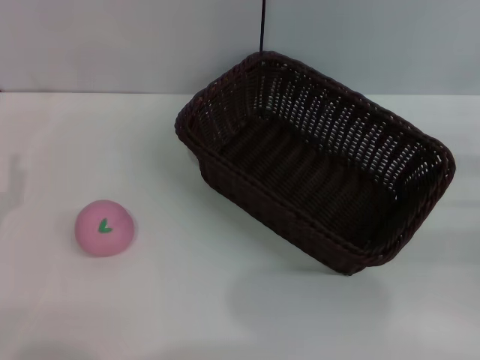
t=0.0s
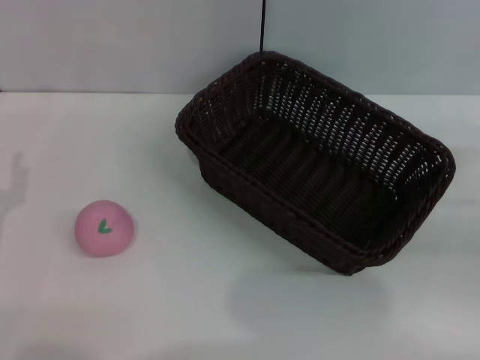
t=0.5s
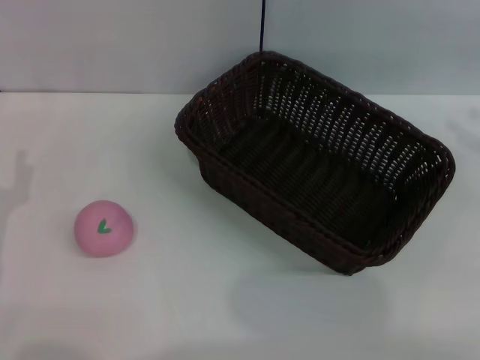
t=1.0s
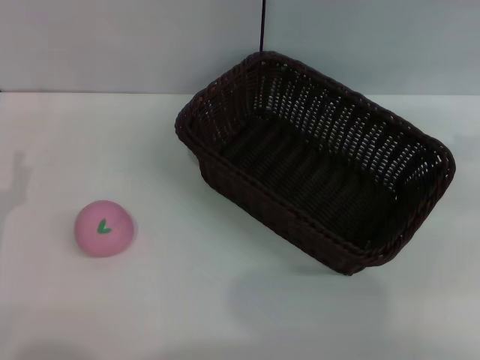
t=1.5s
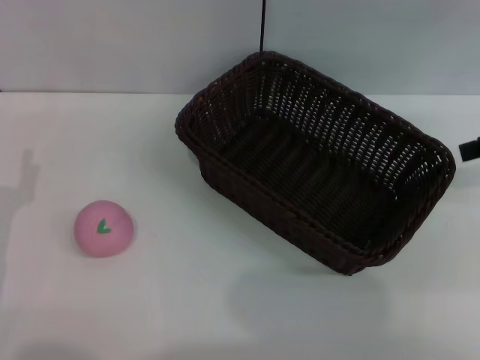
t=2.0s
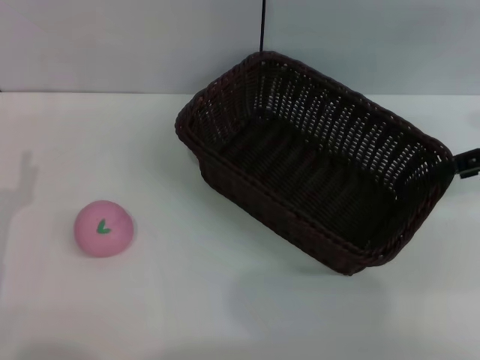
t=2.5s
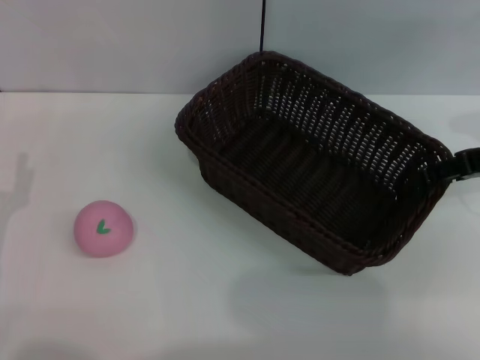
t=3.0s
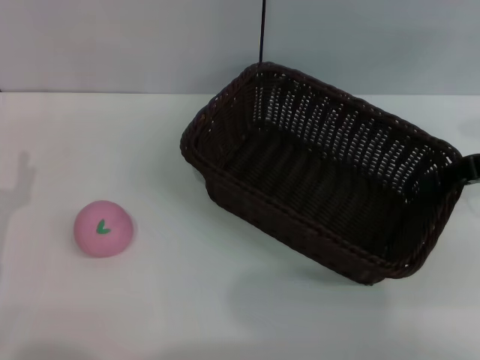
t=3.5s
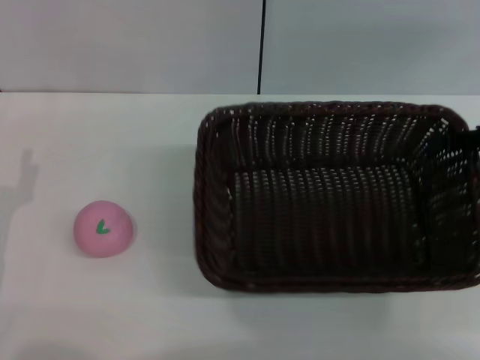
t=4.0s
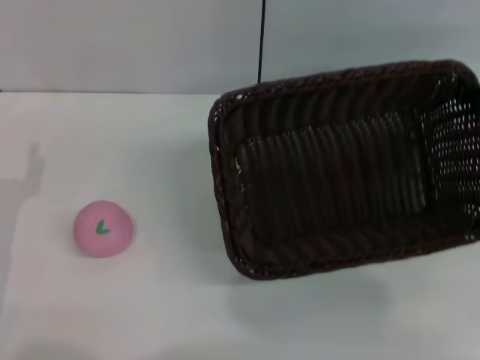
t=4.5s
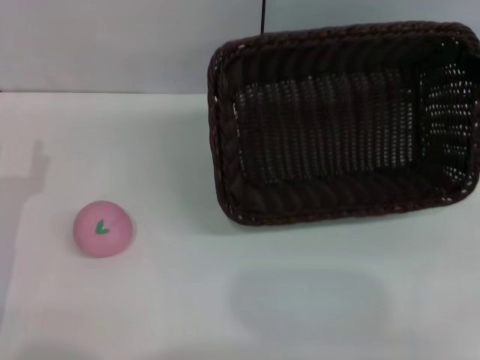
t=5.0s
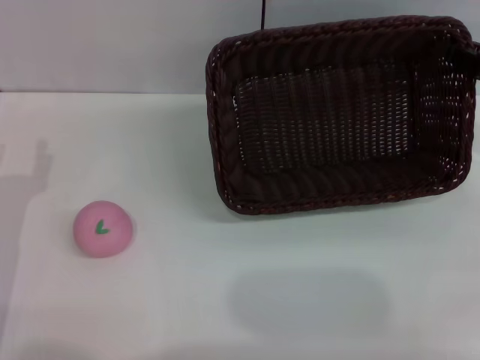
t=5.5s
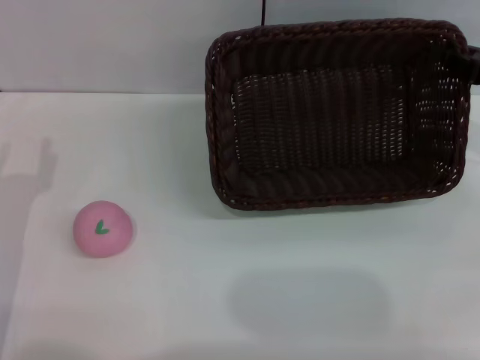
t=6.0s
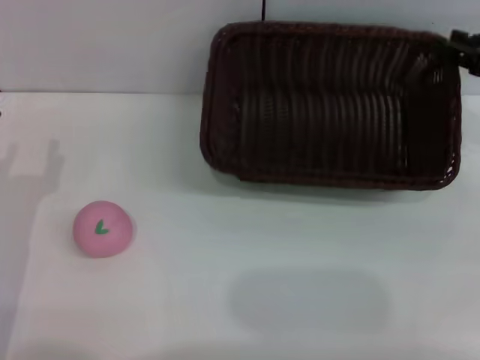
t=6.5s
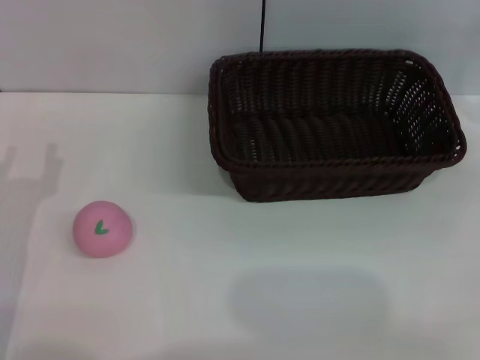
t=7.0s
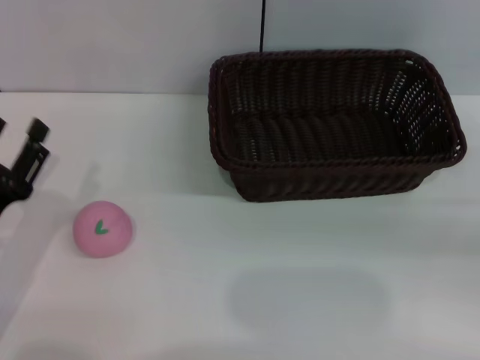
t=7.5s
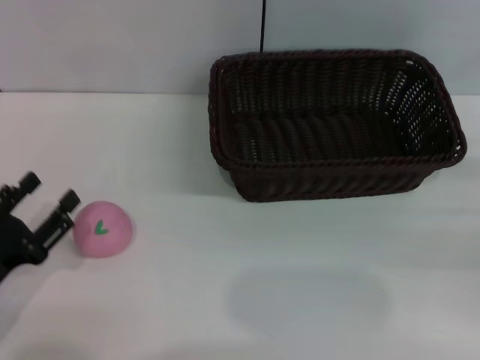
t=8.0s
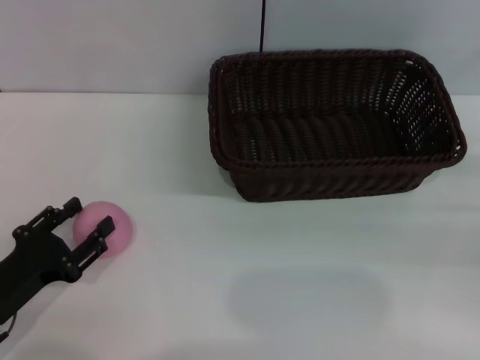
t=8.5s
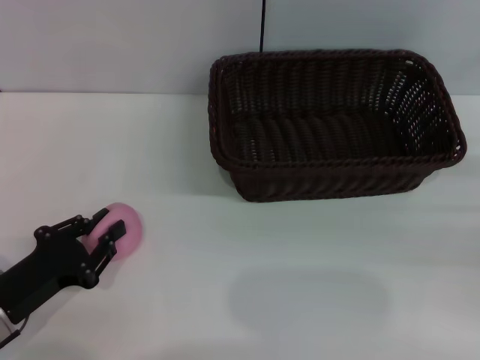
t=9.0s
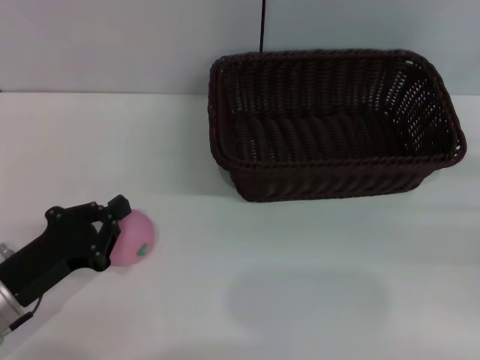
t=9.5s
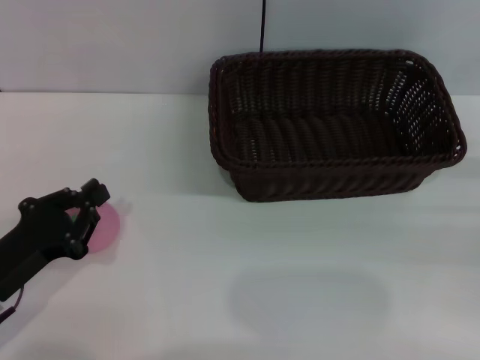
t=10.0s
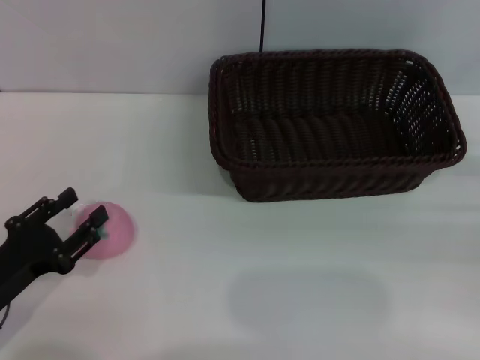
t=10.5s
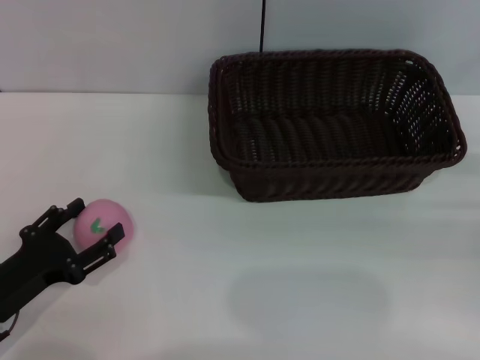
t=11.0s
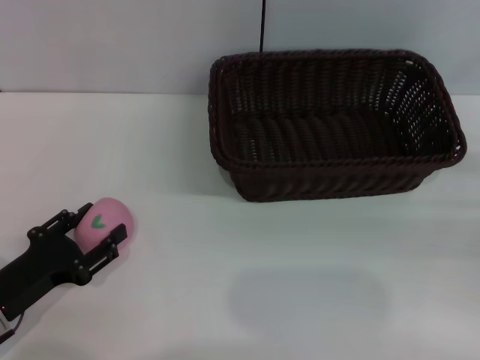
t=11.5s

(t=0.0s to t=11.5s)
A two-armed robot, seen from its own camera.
Step, t=0.0s - t=4.0s: Pick up the dark basket with the right gripper.
Step, t=4.5s - t=6.5s: Place the dark basket in the center of view with the right gripper.
t=0.0s - t=2.0s: The right gripper heads upward and forward, covering about 20 cm.
t=2.0s - t=4.0s: The right gripper moves some 5 cm, and closes its fingers.
t=6.0s - t=7.5s: The right gripper goes roughly 10 cm backward and to the right, and opens up.
t=7.5s - t=9.5s: The left gripper closes its fingers.
t=9.5s - t=11.5s: The left gripper opens its fingers.

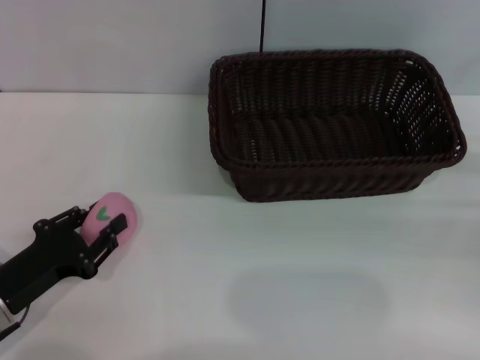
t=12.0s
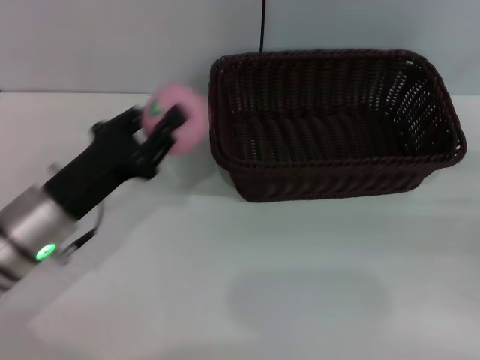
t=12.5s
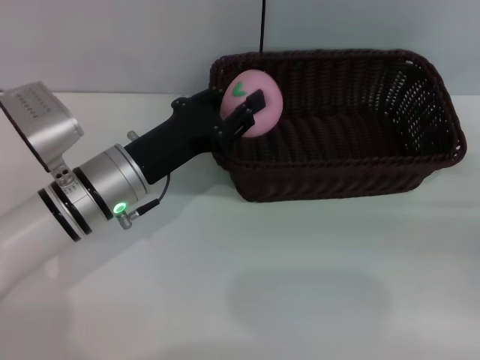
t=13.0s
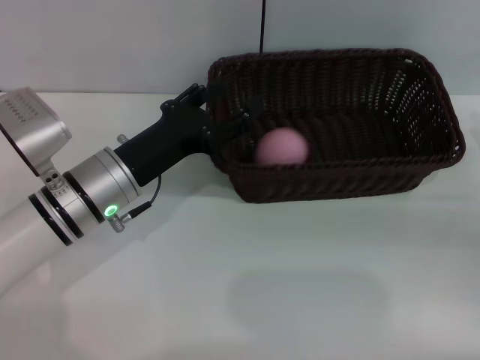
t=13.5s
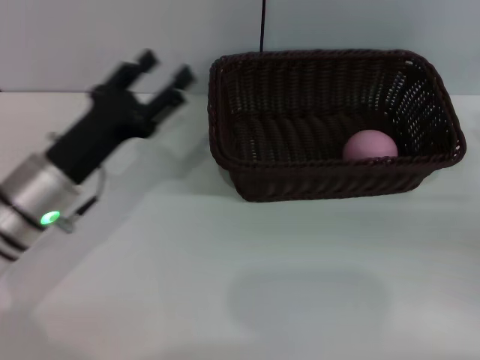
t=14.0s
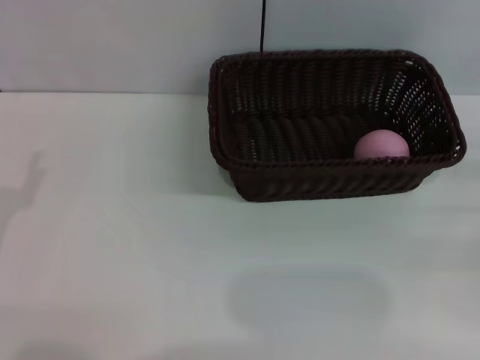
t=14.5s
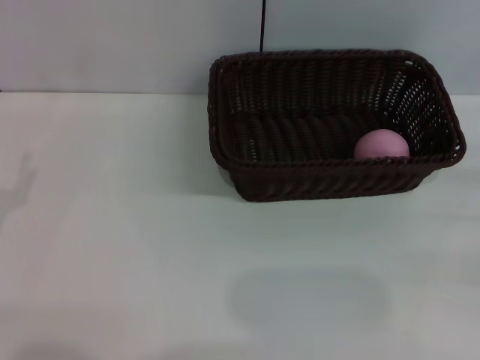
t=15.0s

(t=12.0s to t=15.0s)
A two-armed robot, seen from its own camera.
Step, t=12.5s - t=13.5s: Place the peach into the basket with the left gripper.
t=12.0s - t=13.5s: The left gripper travels to the right, forward and upward by some 15 cm.
t=13.5s - t=15.0s: The right gripper ends up about 5 cm from where it was, while the left gripper heads to the left and backward, covering approximately 20 cm.

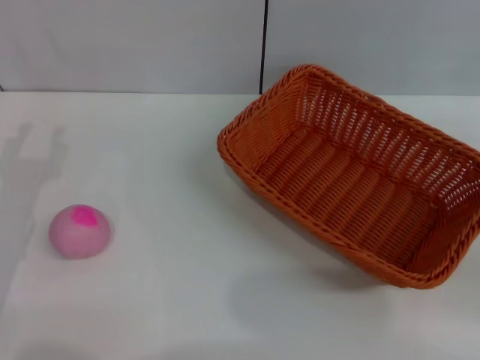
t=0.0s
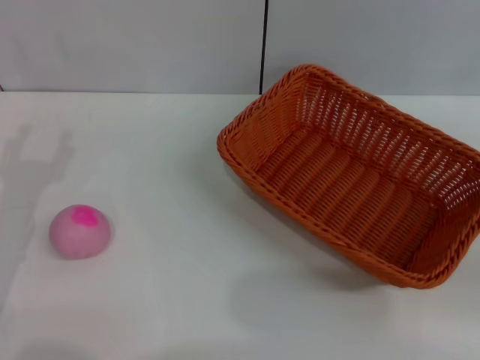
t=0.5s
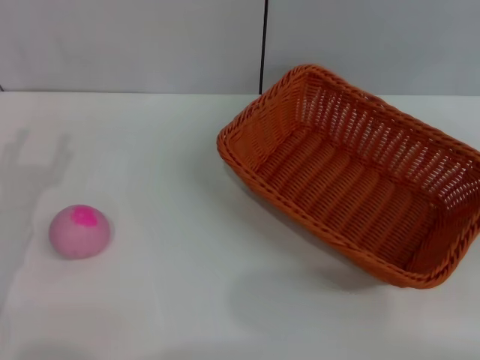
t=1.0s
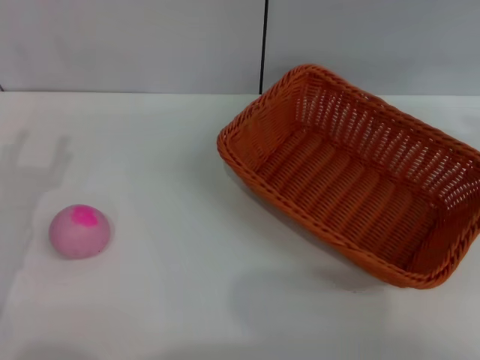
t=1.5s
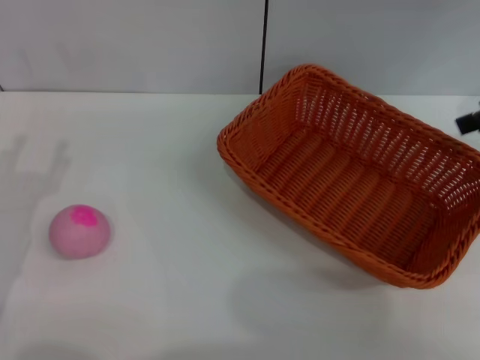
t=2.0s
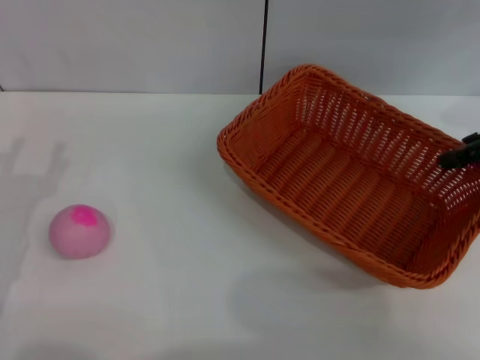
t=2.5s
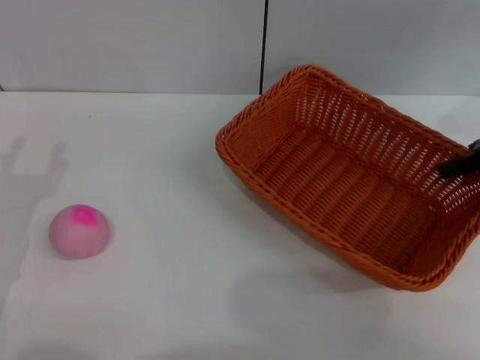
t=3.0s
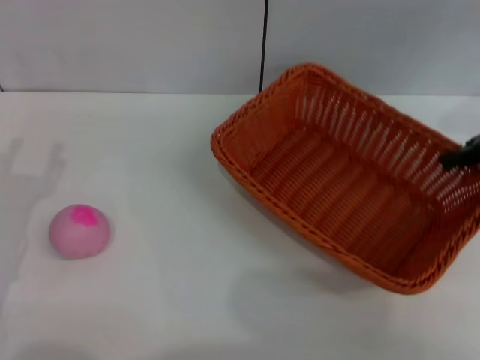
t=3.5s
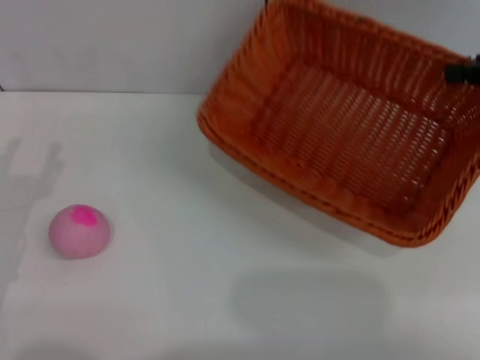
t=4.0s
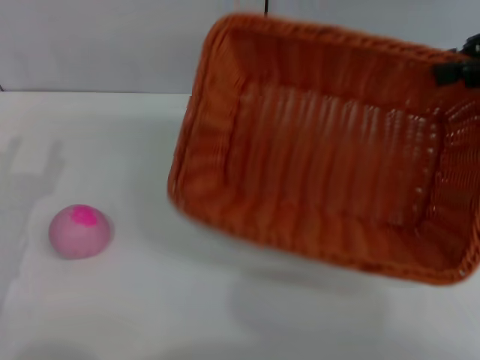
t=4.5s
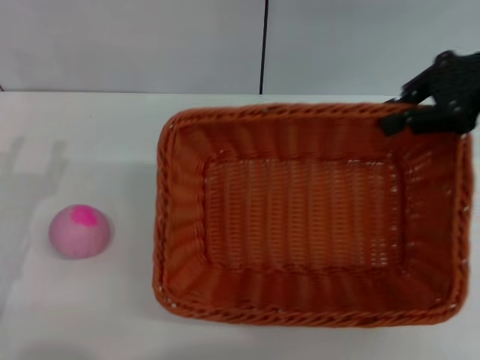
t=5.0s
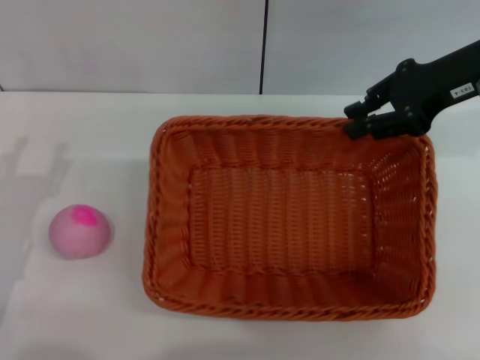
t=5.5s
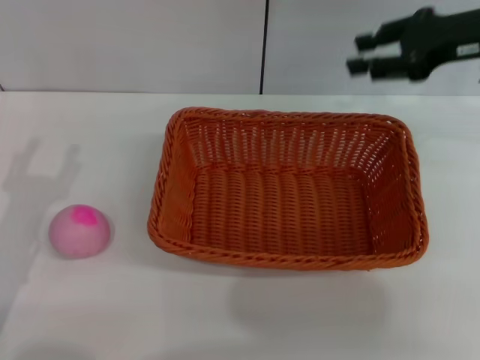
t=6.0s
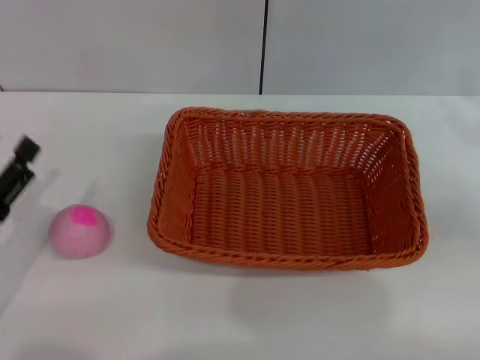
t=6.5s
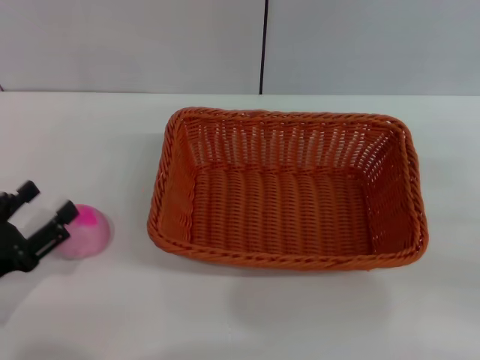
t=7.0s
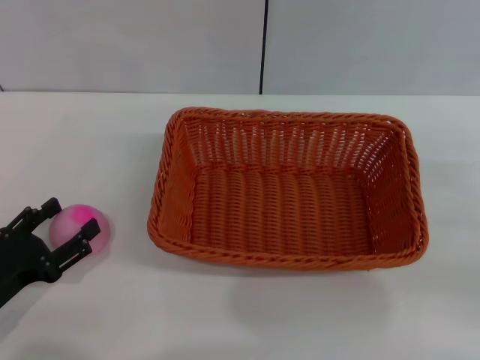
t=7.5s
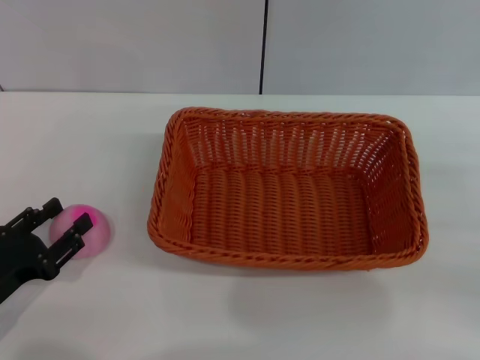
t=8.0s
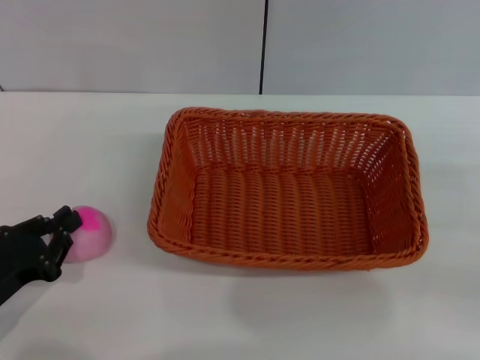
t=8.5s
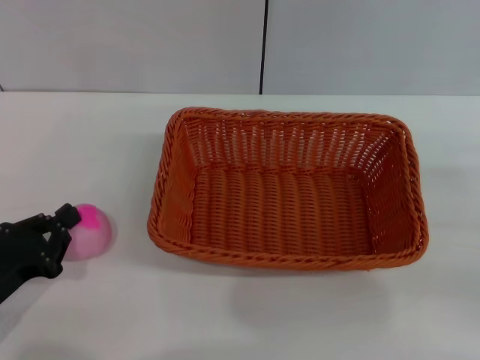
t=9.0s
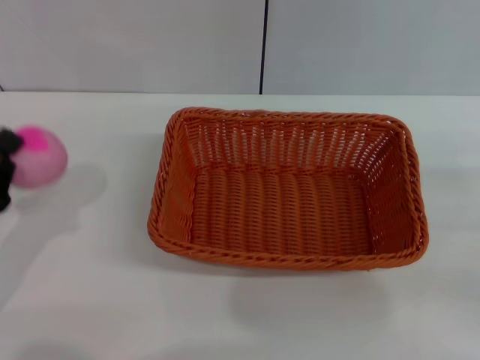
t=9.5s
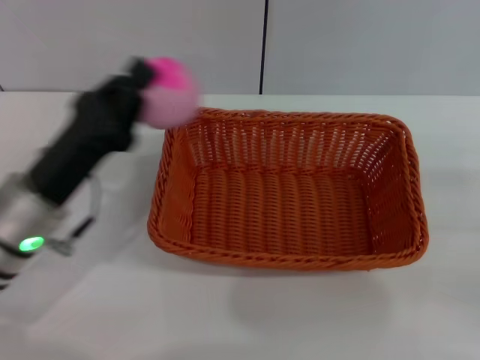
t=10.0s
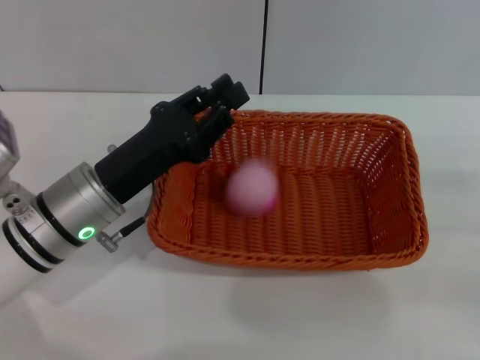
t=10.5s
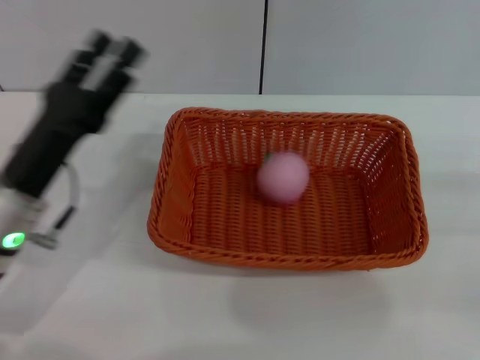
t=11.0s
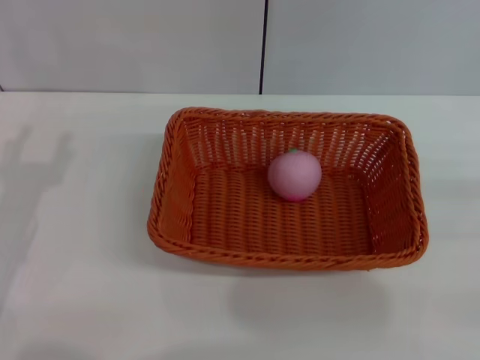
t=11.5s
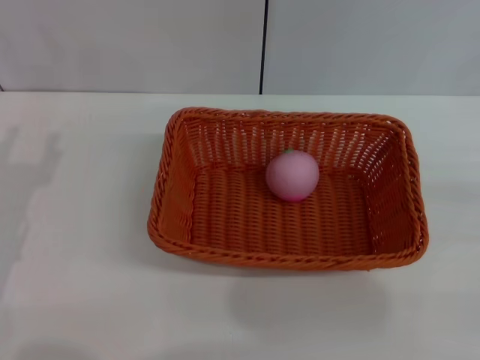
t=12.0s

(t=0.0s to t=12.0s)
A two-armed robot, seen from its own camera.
Step, t=0.0s - t=4.0s: Pick up the light basket with the right gripper.
Step, t=4.5s - t=5.5s: Place the light basket in the center of view with the right gripper.
Step, t=6.0s - t=9.5s: Pick up the peach with the left gripper.
Step, t=10.0s - t=10.5s: Place the peach into the basket with the left gripper.
t=0.0s - t=2.0s: The right gripper moves upward, forward and to the left, some 20 cm, and opens its fingers.
t=2.0s - t=4.0s: The right gripper closes.
t=4.0s - t=6.0s: The right gripper is displaced to the left by some 5 cm, and opens its fingers.
t=6.0s - t=8.0s: The right gripper moves backward, to the right and downward, roughly 25 cm; the left gripper goes approximately 5 cm downward.
t=8.0s - t=10.0s: The left gripper is displaced to the right, forward and upward by approximately 15 cm, and closes.
t=10.0s - t=12.0s: The left gripper heads to the left, covering about 10 cm, and opens up.
